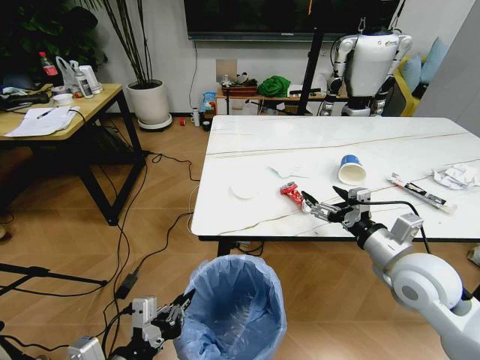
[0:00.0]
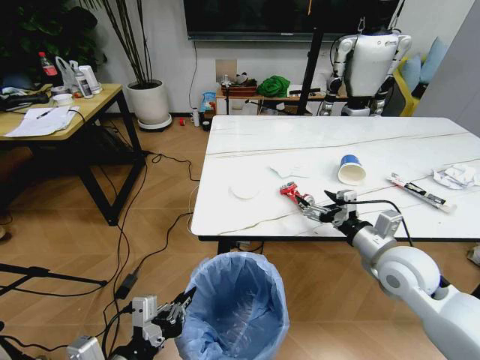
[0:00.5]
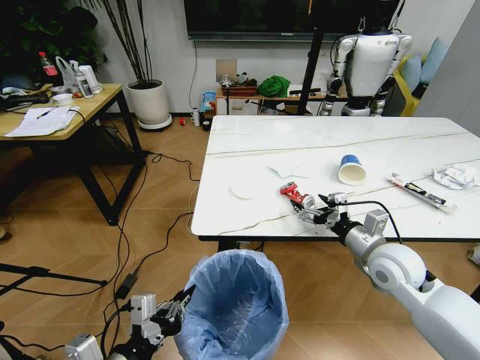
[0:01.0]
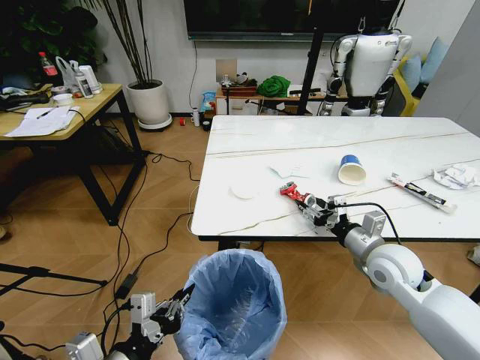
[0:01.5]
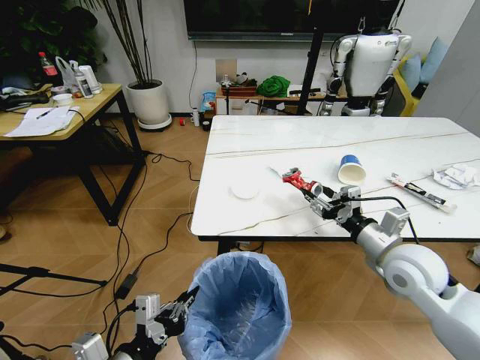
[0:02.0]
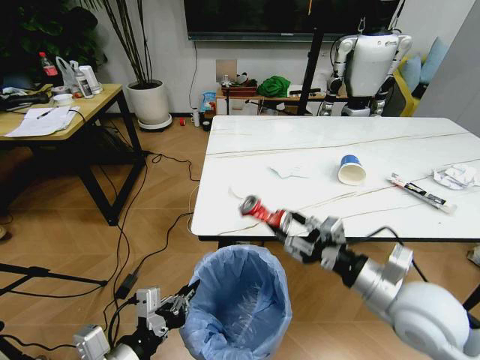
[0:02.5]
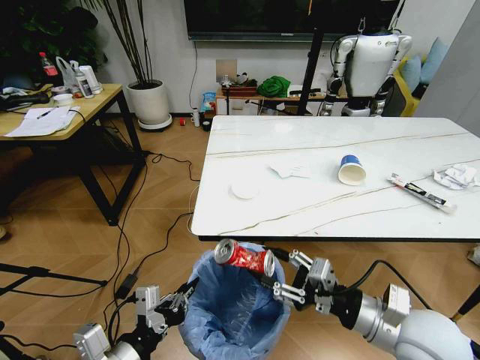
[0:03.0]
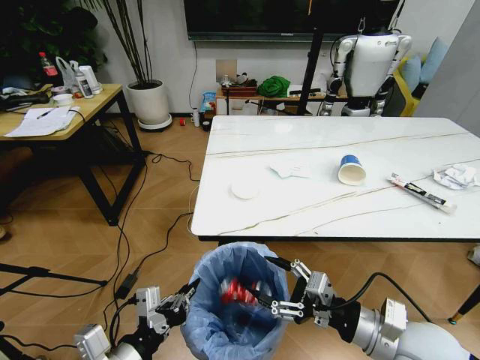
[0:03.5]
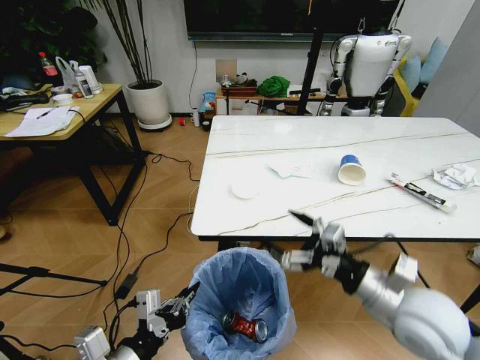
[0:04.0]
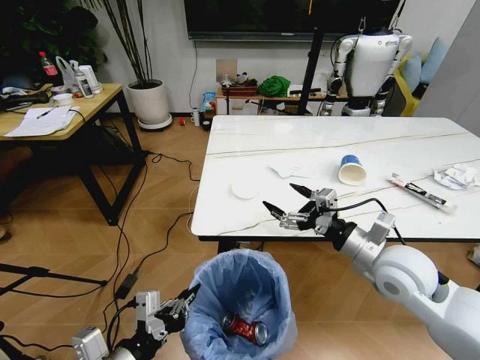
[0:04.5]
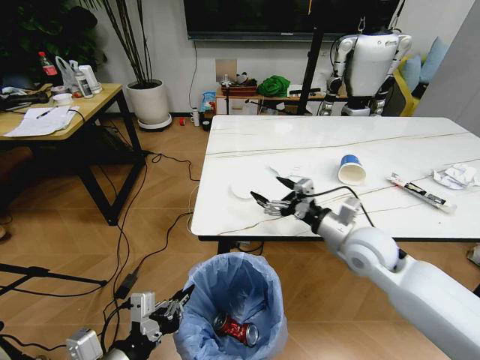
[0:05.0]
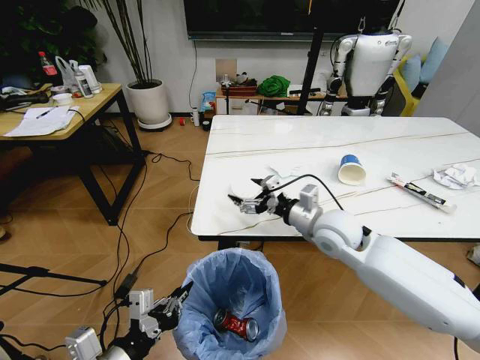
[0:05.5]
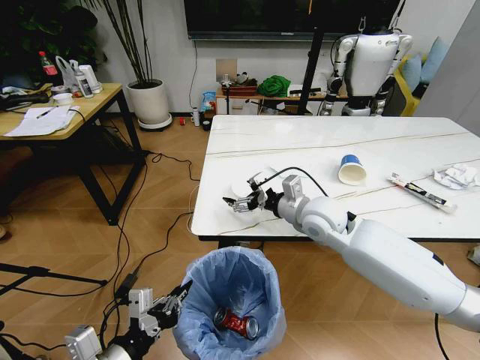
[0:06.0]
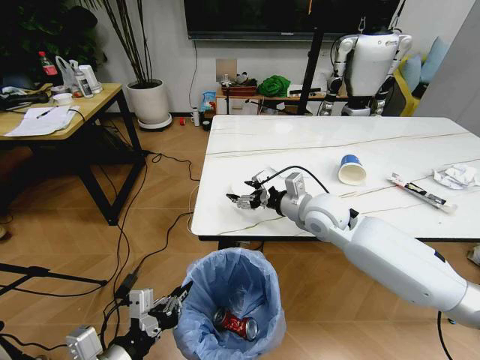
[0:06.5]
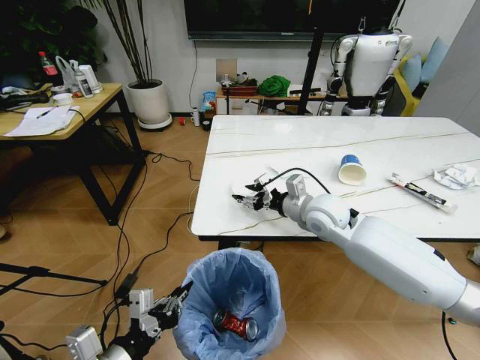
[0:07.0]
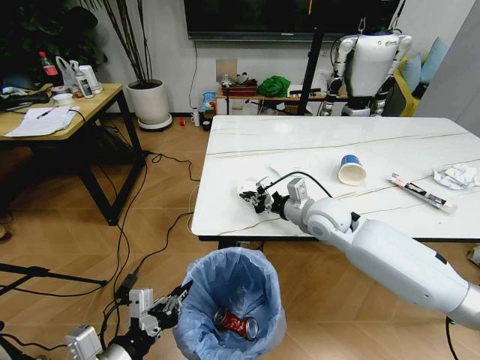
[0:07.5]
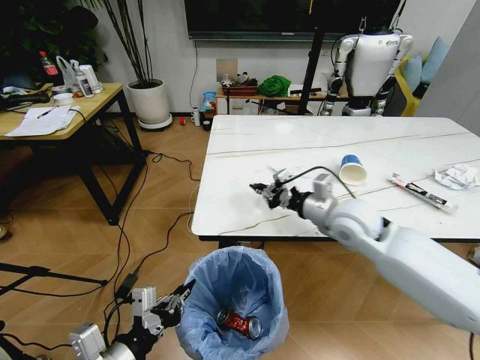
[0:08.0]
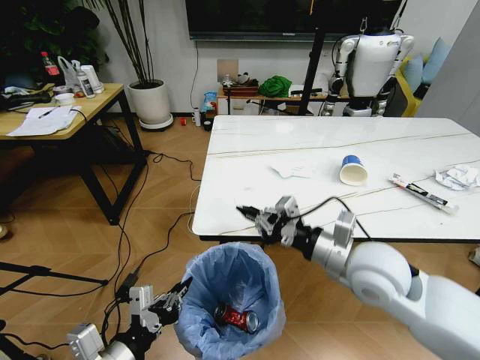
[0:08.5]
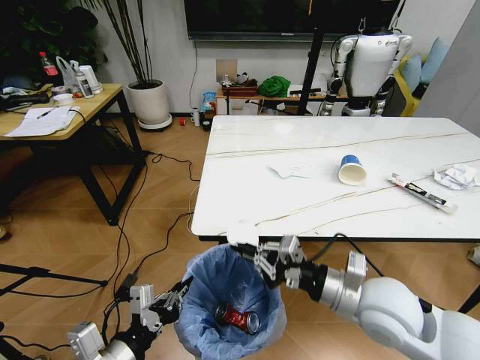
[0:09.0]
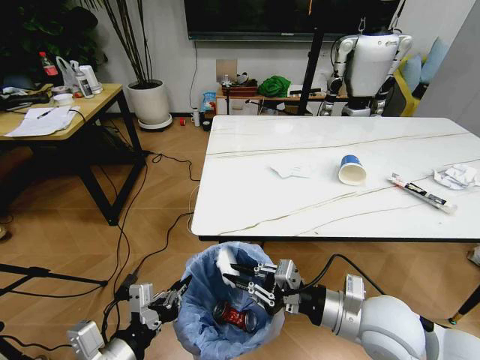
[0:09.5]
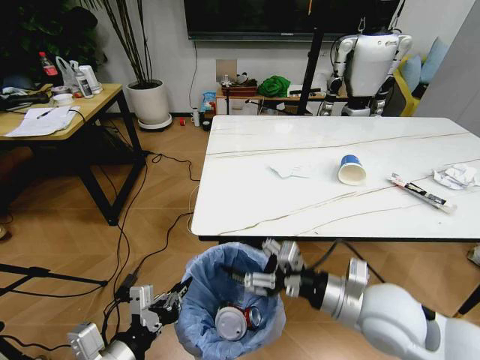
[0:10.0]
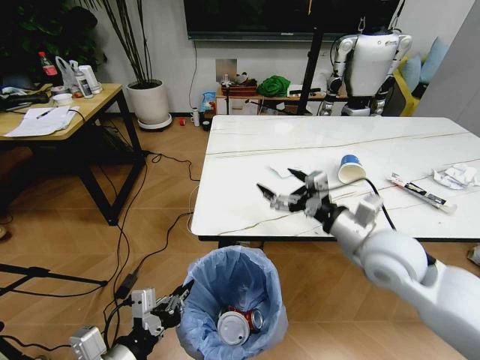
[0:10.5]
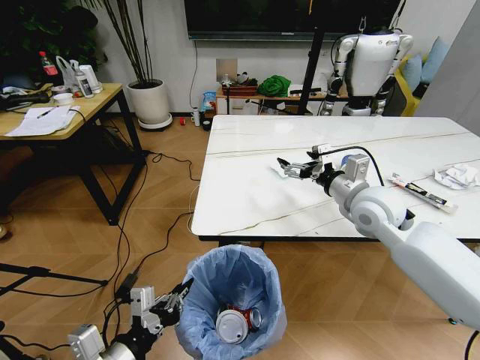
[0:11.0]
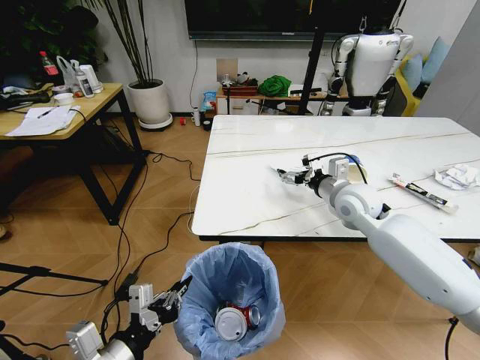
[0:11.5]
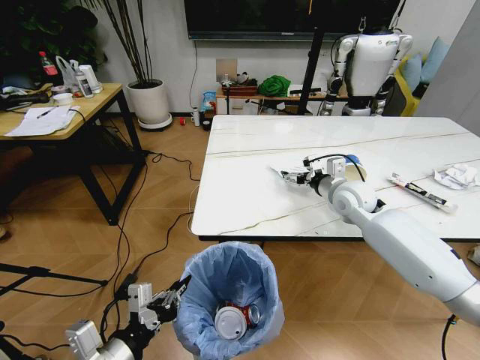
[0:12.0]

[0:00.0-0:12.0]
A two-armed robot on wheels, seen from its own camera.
Task of the whole recording: Pick up the trash bin and place the trash from the table into it.
0:00.0 to 0:02.0: The right gripper closes its fingers.
0:02.0 to 0:04.0: The right gripper shifts approximately 10 cm backward, and opens its fingers.
0:04.0 to 0:06.0: The right gripper shifts some 25 cm forward and to the left.
0:06.0 to 0:08.0: The right gripper heads to the right, covering approximately 5 cm, and closes.
0:08.0 to 0:10.0: The right gripper goes about 15 cm backward, and opens up.
0:10.0 to 0:12.0: The right gripper heads forward, covering about 25 cm.

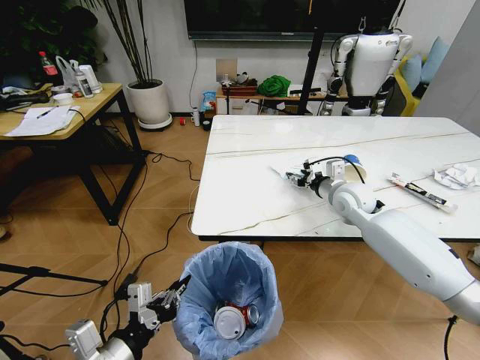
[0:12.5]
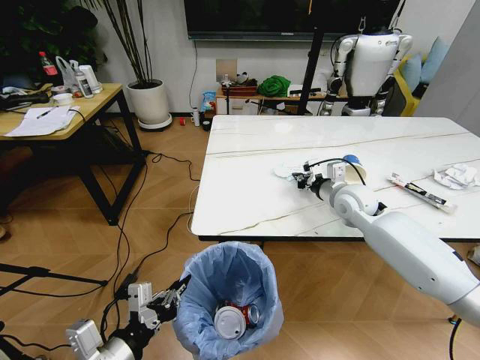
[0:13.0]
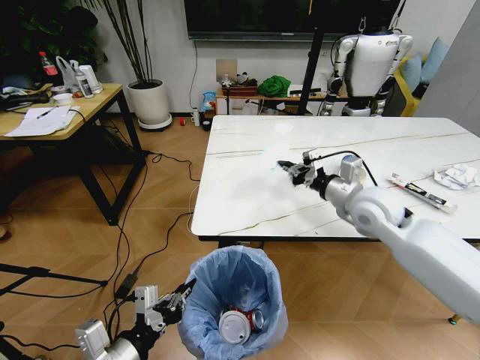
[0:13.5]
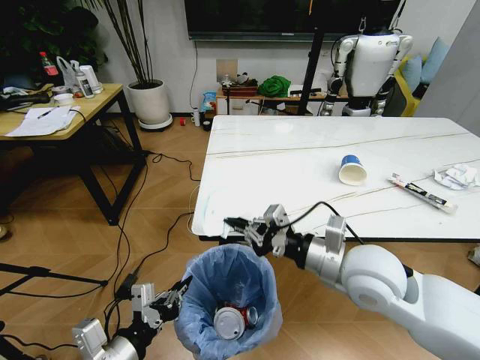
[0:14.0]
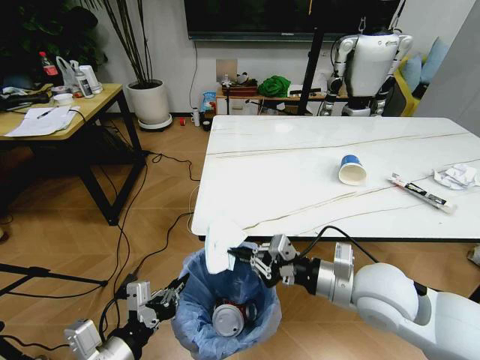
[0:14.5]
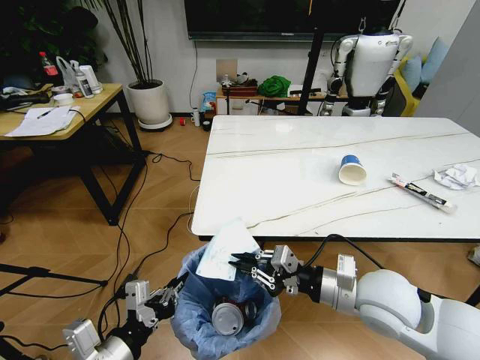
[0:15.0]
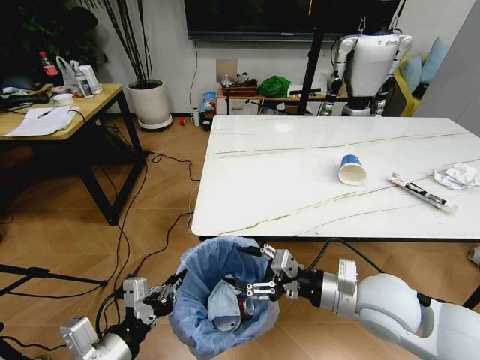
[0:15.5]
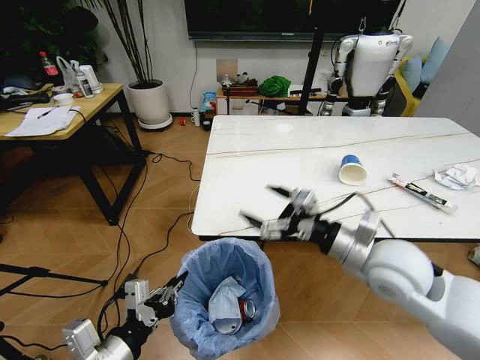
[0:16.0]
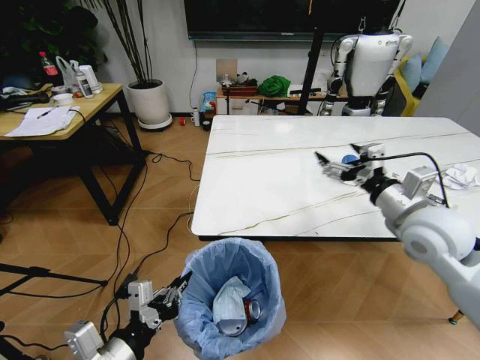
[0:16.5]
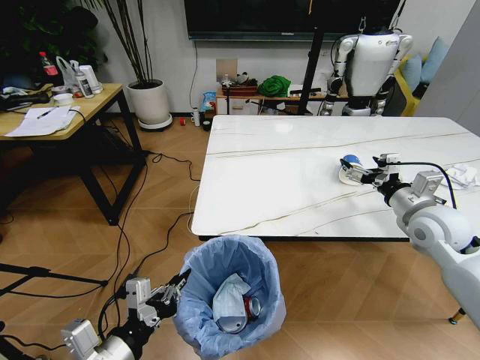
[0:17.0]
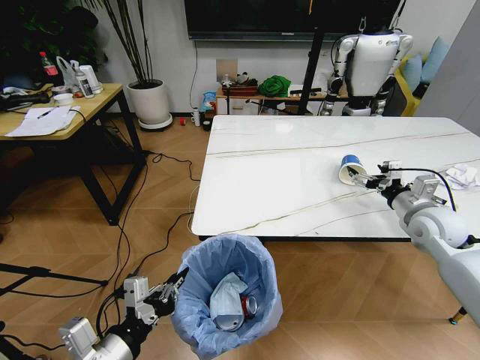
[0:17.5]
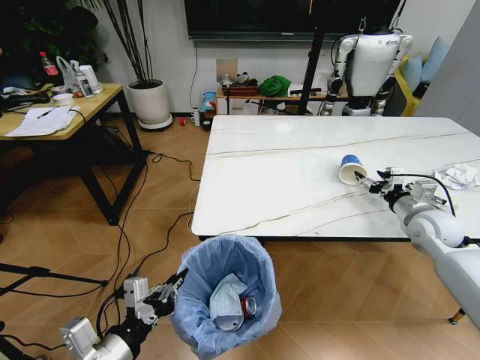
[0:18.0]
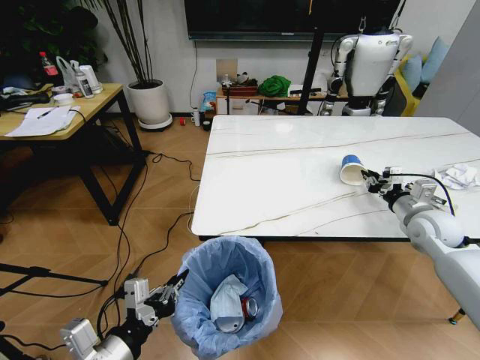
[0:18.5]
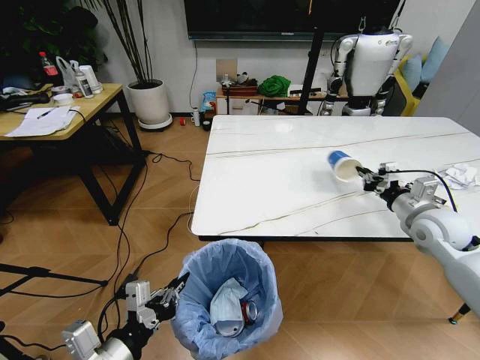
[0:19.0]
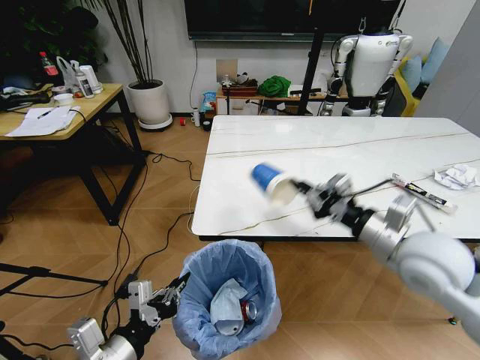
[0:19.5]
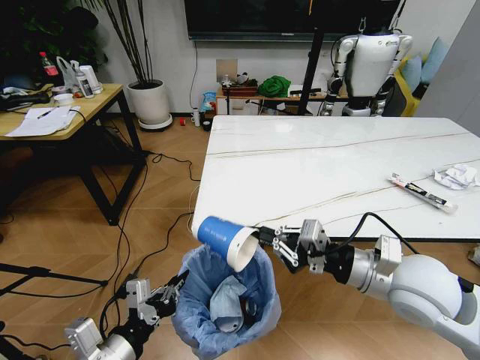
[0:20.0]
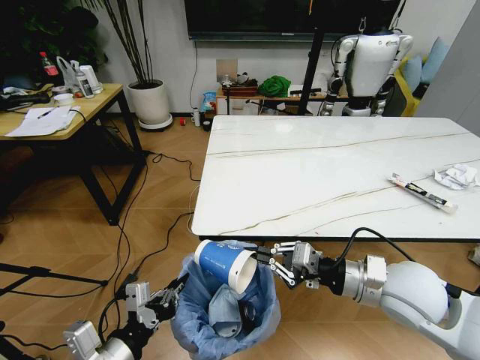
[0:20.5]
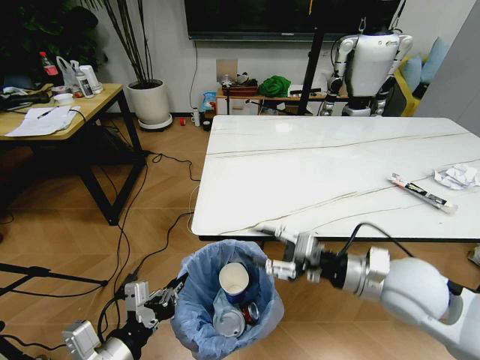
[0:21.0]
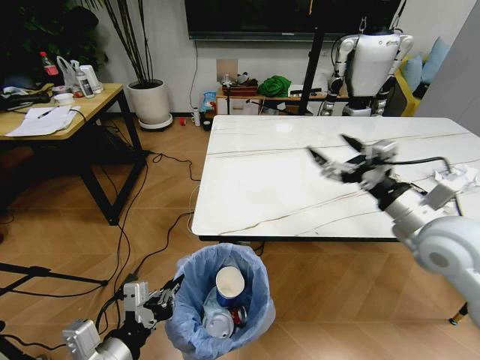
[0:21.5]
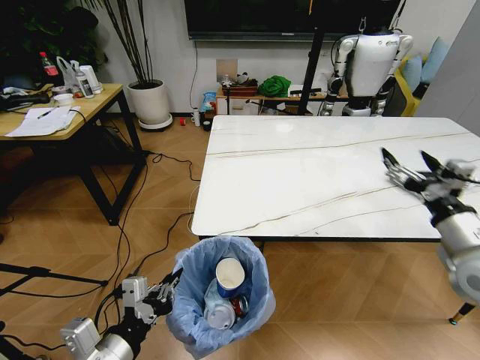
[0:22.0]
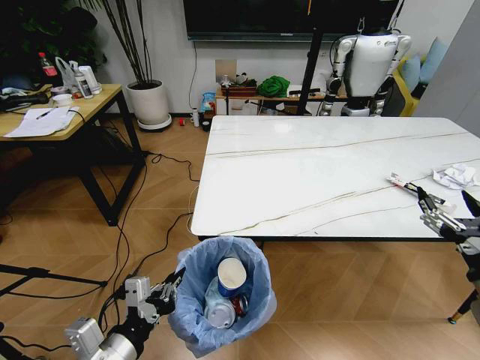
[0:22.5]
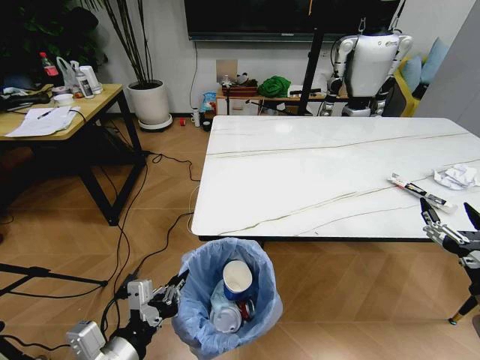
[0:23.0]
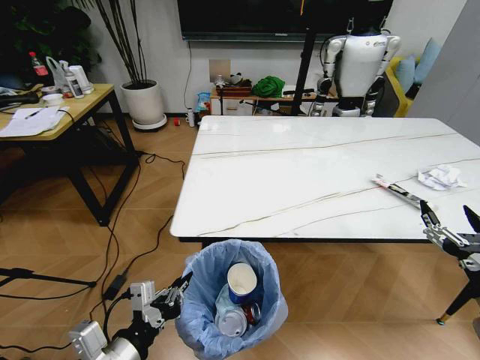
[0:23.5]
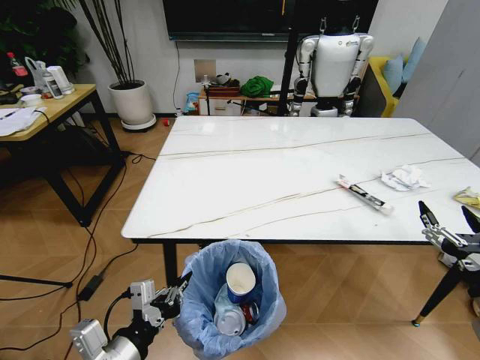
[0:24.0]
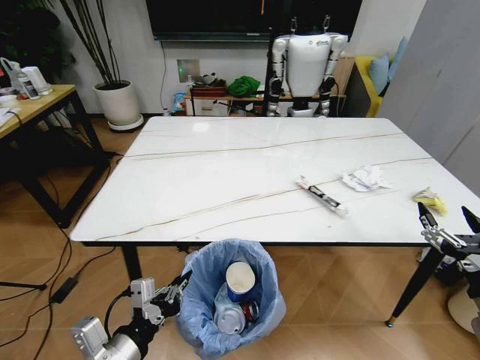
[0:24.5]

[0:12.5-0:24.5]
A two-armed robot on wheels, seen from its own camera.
Task of the whole recording: Pick up the trash bin and place the trash from the table into it.
0:12.5 to 0:14.5: The right gripper travels backward by some 25 cm, and closes.
0:14.5 to 0:16.5: The right gripper shifts approximately 15 cm to the right, forward and upward, and opens its fingers.
0:16.5 to 0:18.5: The right gripper heads to the right, downward and forward, covering some 20 cm, and closes.
0:18.5 to 0:20.5: The right gripper shifts approximately 25 cm to the left and backward.
0:20.5 to 0:22.5: The right gripper moves to the right and backward, about 20 cm, and opens.

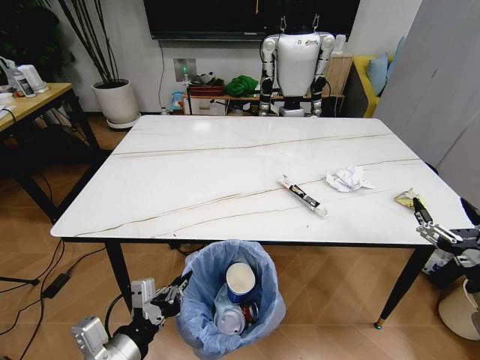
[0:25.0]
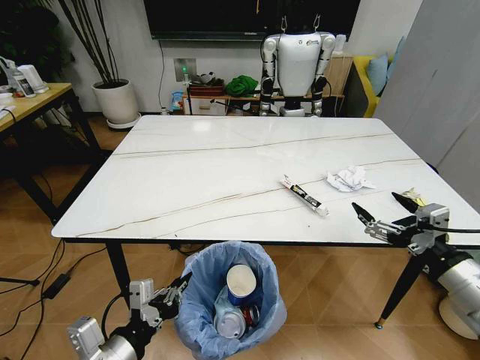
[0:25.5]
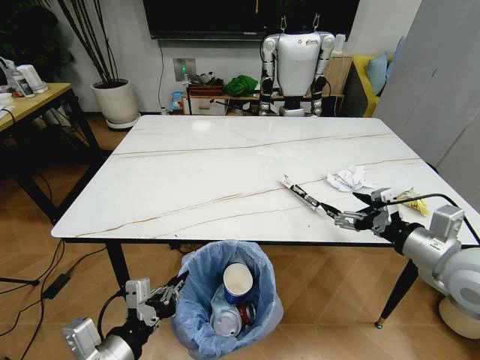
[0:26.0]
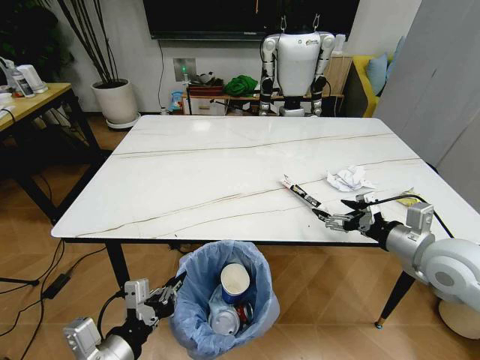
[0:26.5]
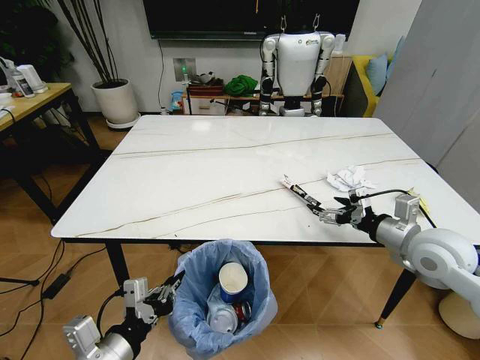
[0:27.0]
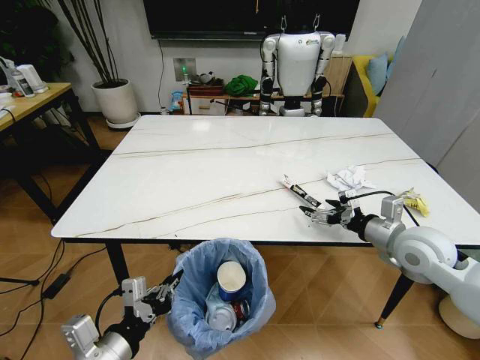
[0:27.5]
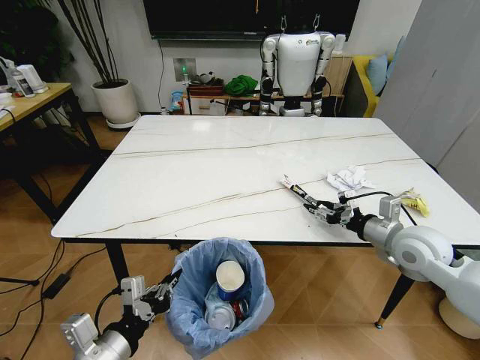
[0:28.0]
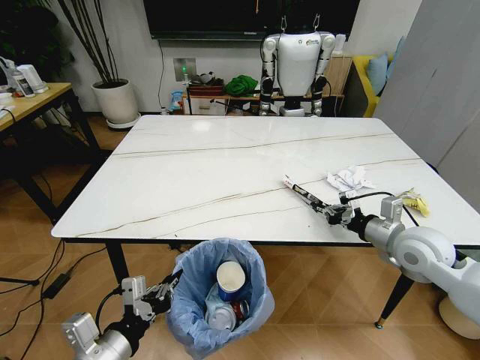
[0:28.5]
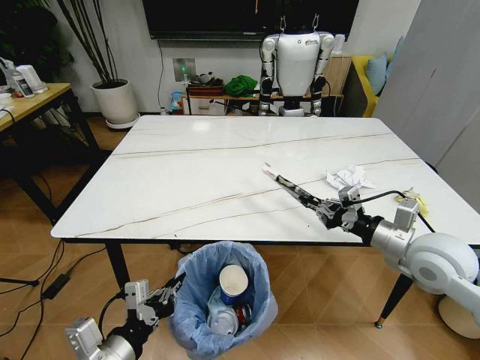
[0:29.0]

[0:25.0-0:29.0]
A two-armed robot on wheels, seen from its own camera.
Task of the whole recording: Pick up the trash bin and place the trash from the table into it.
0:25.0 to 0:27.0: The right gripper heads forward and to the left, covering approximately 20 cm.
0:27.0 to 0:29.0: The right gripper closes.
